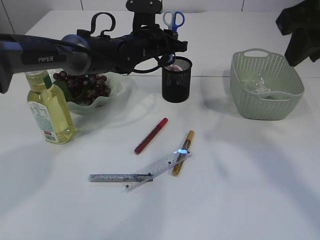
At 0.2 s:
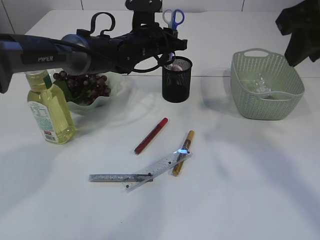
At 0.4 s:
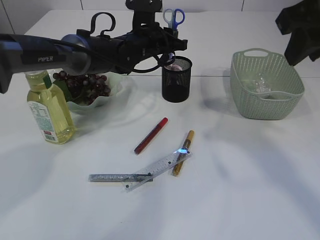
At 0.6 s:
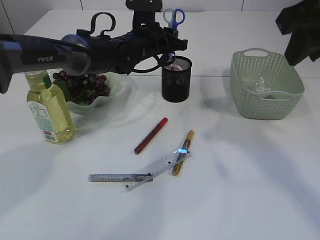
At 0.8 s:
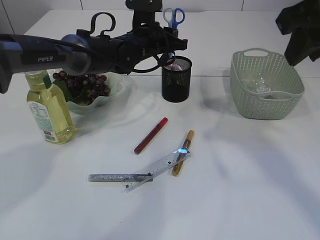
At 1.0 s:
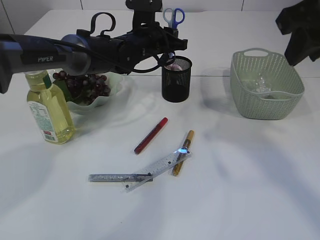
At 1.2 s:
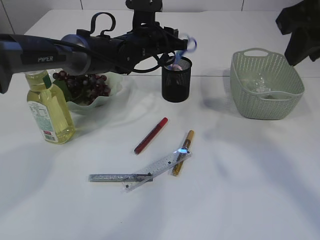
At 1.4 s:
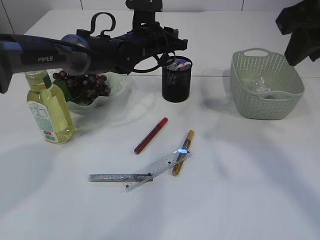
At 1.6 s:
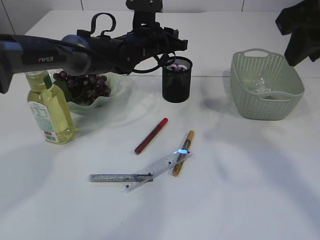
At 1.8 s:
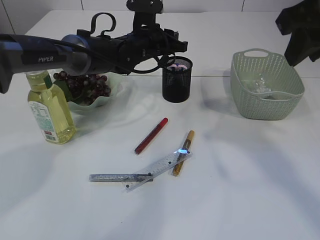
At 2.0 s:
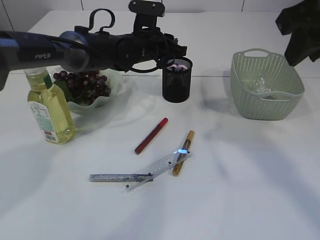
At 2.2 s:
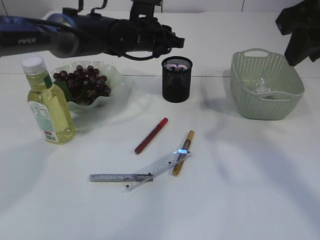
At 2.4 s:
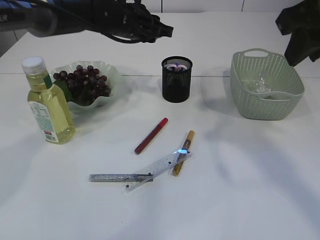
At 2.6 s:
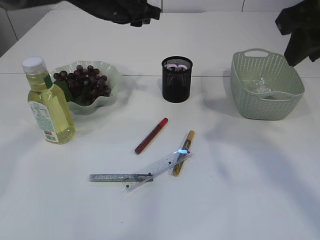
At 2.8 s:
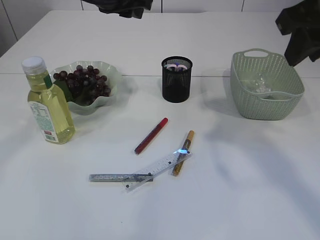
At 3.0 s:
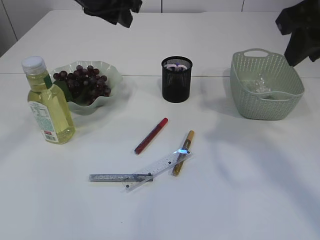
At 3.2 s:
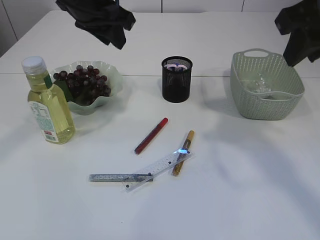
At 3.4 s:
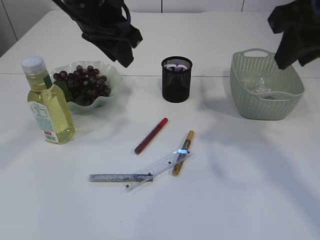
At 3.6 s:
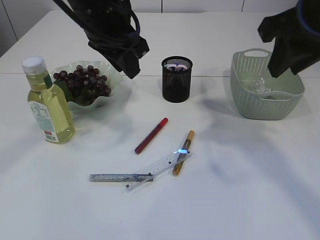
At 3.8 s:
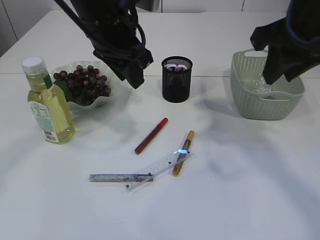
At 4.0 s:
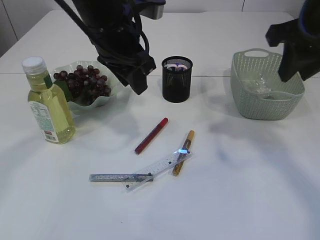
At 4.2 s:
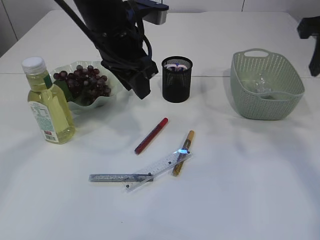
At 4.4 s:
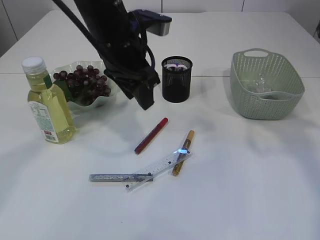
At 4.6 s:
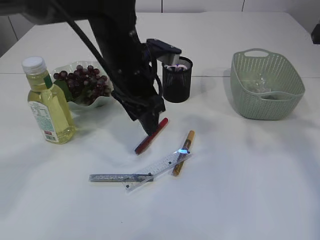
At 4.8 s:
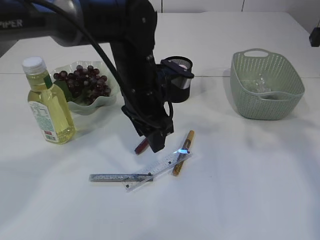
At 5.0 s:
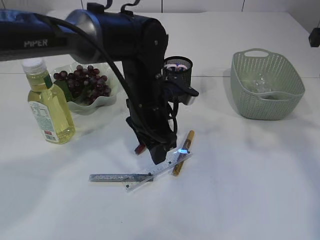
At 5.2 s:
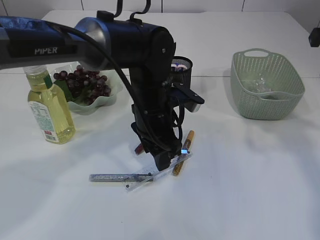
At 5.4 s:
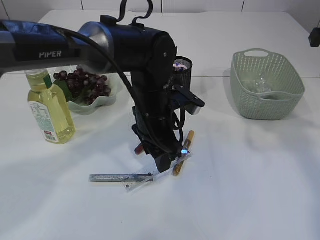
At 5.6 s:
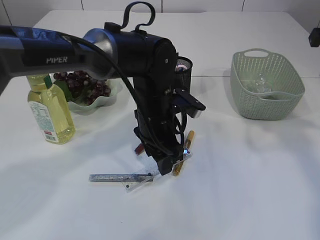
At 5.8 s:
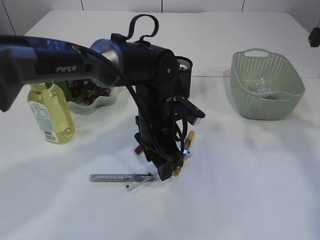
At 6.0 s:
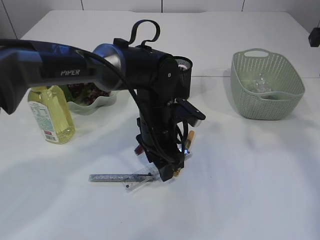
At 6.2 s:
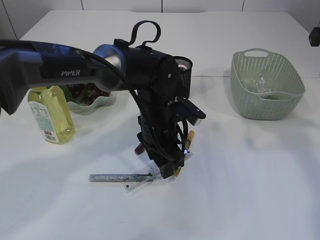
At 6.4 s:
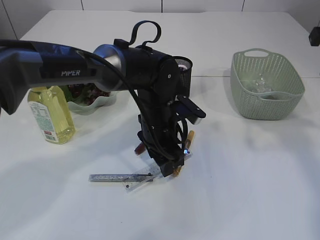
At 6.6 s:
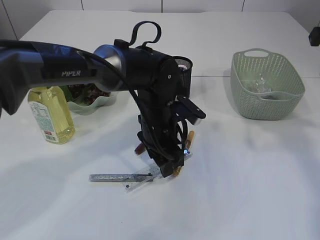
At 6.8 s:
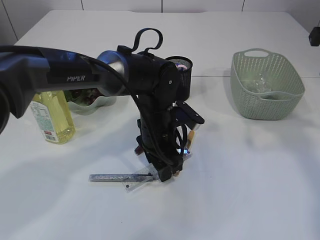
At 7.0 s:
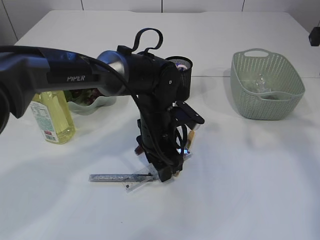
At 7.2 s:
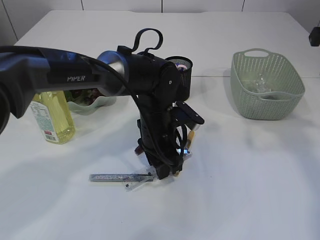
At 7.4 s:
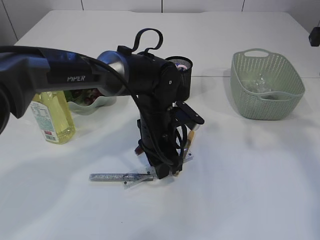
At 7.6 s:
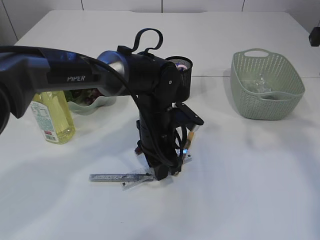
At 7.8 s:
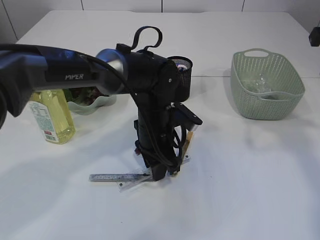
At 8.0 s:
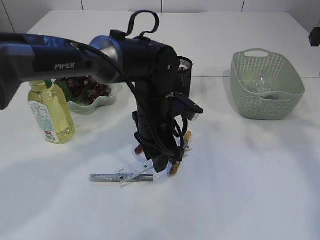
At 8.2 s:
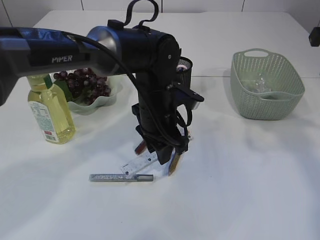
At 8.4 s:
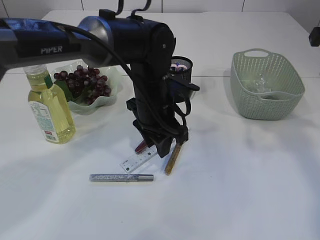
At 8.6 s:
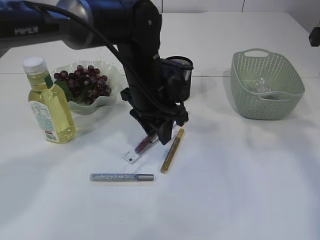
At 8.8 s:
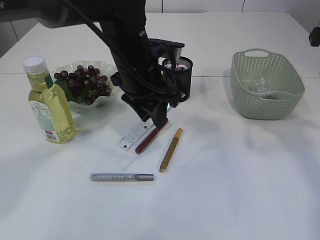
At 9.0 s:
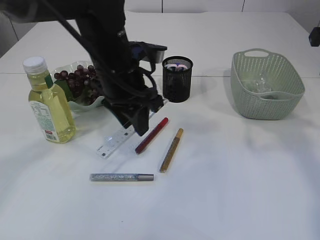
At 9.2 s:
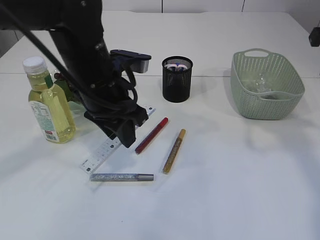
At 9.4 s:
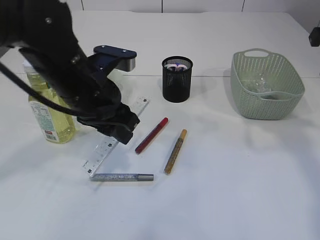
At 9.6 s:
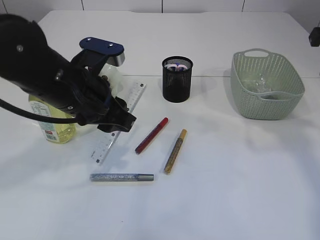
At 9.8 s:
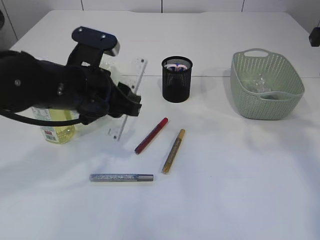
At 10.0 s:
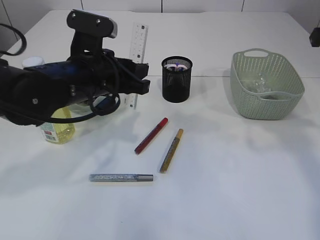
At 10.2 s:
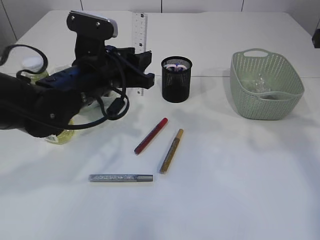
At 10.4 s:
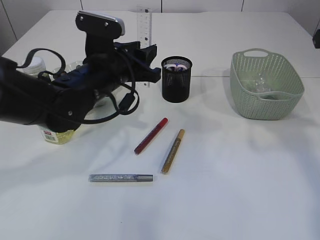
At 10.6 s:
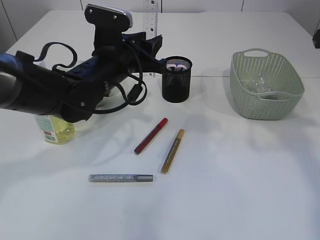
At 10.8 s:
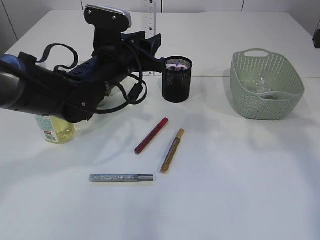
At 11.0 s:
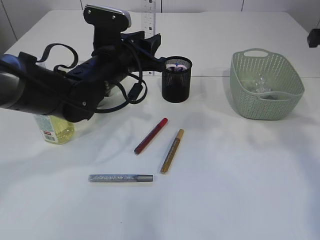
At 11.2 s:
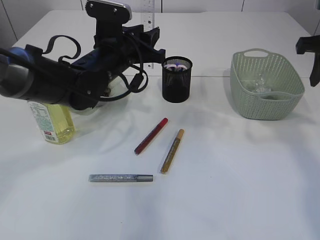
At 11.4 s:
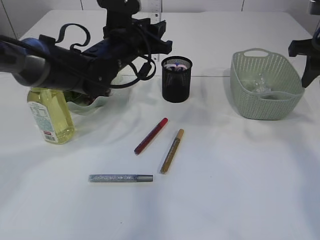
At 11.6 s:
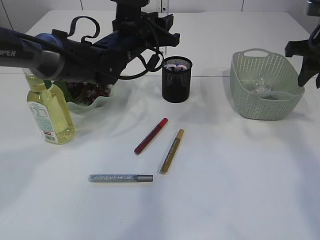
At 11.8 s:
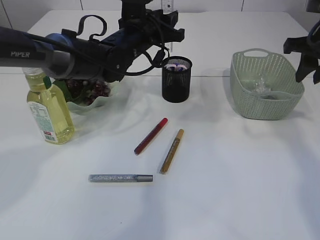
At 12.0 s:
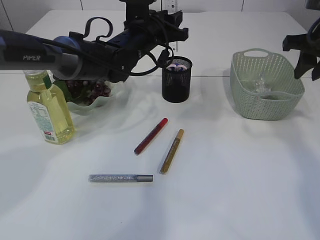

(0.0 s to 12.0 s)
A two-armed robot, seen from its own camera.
Step, 0.0 s - 2.2 s: Place the blue knife into the pen holder.
Step, 2.4 s - 9.0 s: pick up the ruler.
0.0 s - 1.6 s: Both grippers stay about where they are.
1.6 s - 3.0 s: The left gripper shifts some 20 cm upward, backward and to the left.
3.0 s - 4.4 s: The left gripper moves downward and backward, about 10 cm. The right gripper shifts about 10 cm to the right.
4.4 s - 6.0 s: The left gripper is displaced downward by some 15 cm.
6.0 s - 7.6 s: The two grippers keep their place.
7.6 s - 9.0 s: The left gripper shifts roughly 15 cm upward and to the left.
10.4 s - 12.0 s: The left gripper is displaced forward and to the right by about 15 cm, while the right gripper moves forward, about 5 cm.

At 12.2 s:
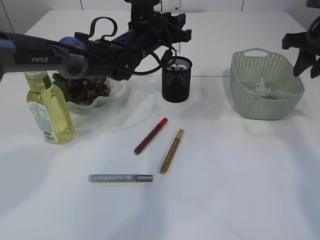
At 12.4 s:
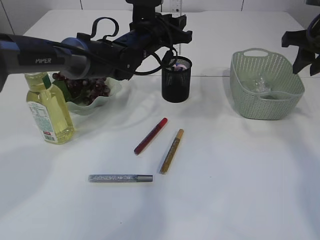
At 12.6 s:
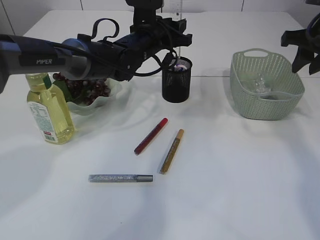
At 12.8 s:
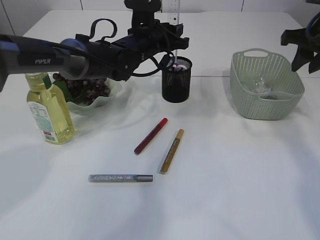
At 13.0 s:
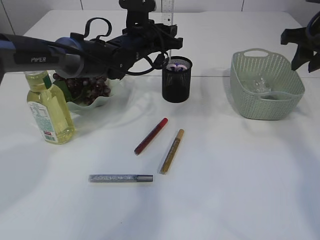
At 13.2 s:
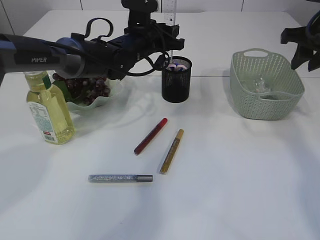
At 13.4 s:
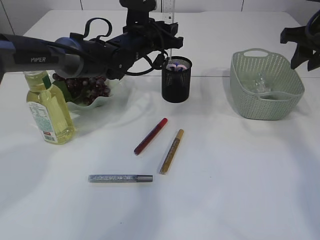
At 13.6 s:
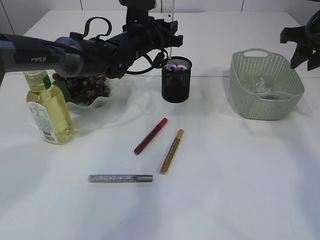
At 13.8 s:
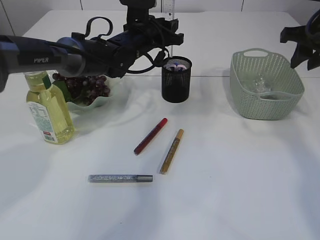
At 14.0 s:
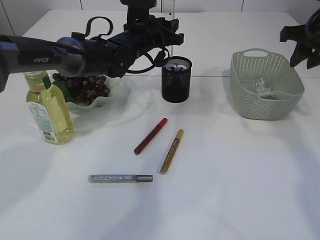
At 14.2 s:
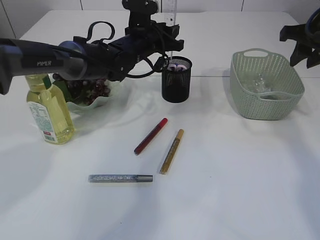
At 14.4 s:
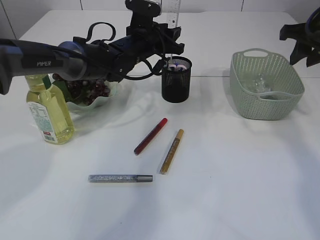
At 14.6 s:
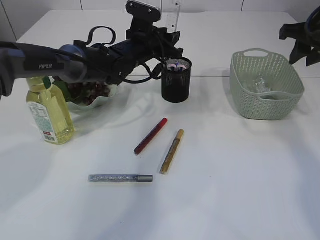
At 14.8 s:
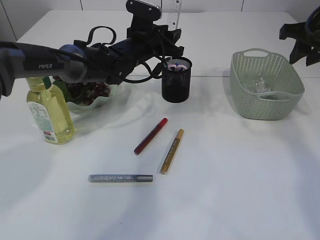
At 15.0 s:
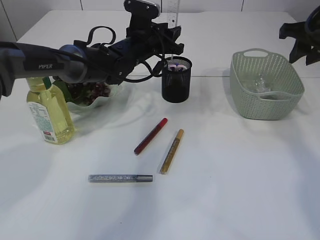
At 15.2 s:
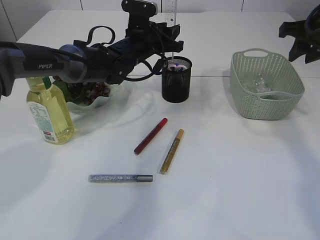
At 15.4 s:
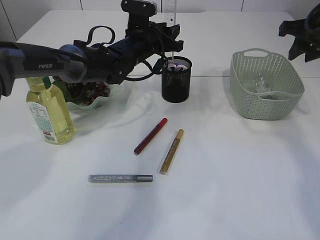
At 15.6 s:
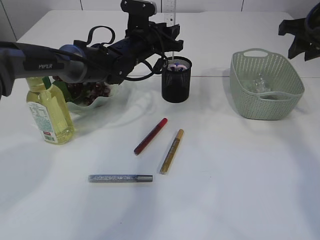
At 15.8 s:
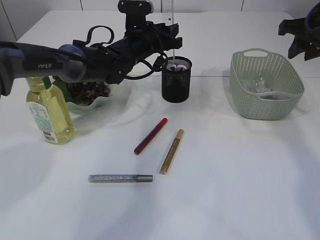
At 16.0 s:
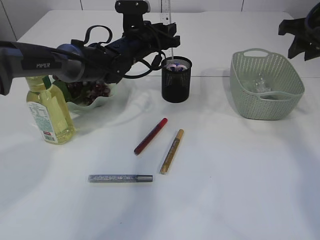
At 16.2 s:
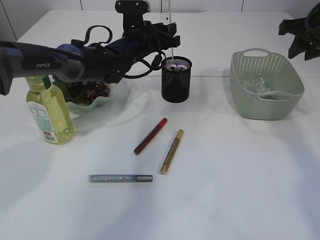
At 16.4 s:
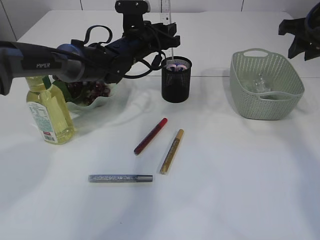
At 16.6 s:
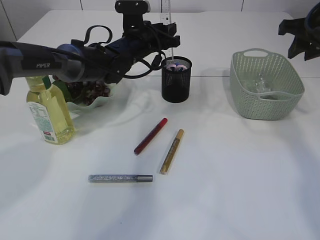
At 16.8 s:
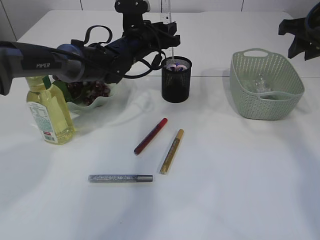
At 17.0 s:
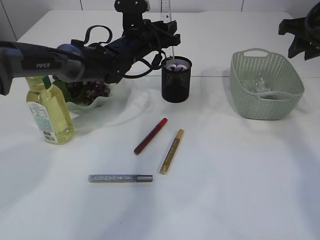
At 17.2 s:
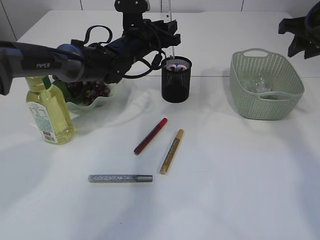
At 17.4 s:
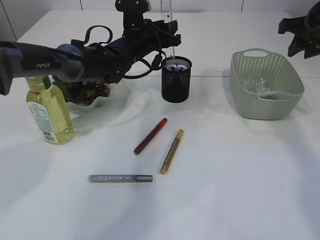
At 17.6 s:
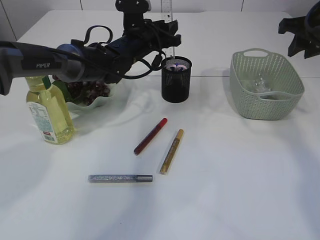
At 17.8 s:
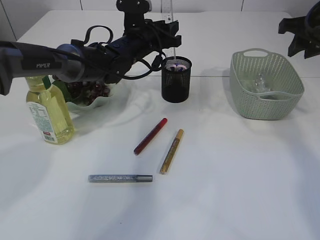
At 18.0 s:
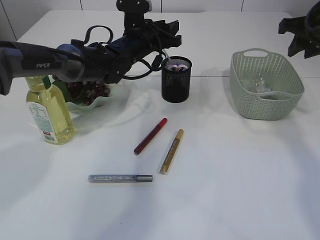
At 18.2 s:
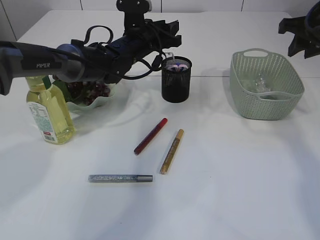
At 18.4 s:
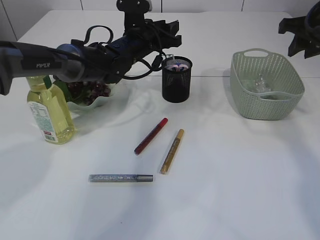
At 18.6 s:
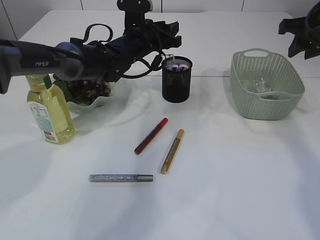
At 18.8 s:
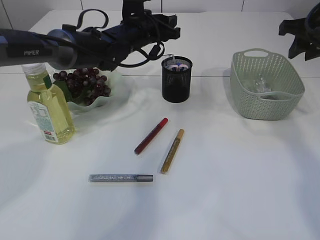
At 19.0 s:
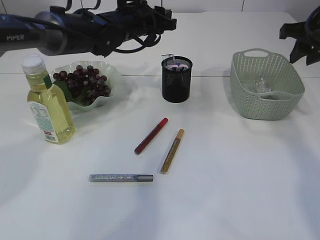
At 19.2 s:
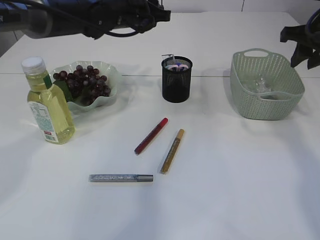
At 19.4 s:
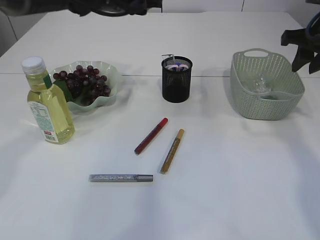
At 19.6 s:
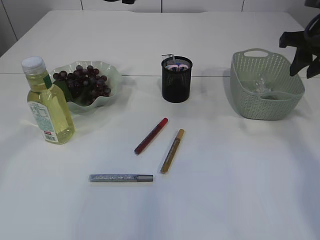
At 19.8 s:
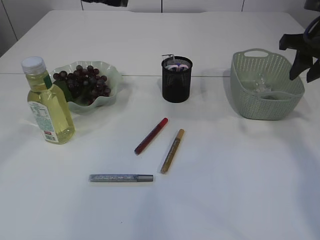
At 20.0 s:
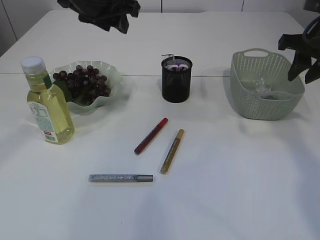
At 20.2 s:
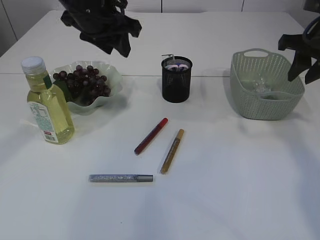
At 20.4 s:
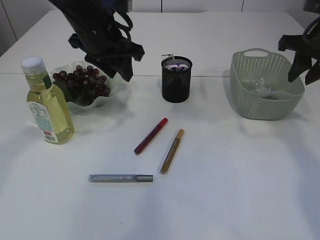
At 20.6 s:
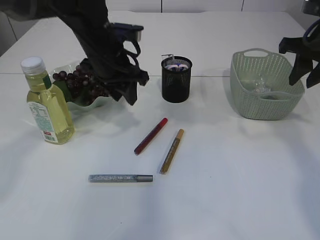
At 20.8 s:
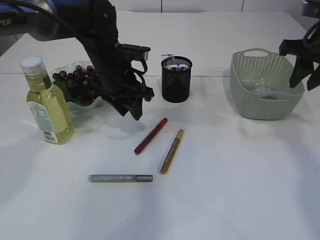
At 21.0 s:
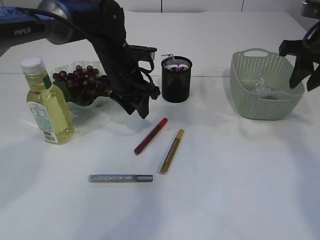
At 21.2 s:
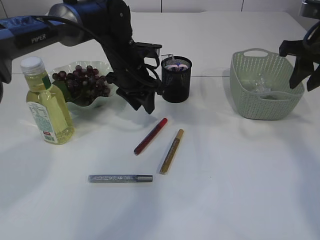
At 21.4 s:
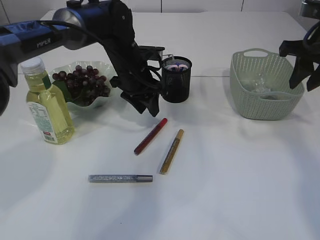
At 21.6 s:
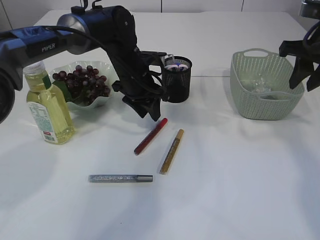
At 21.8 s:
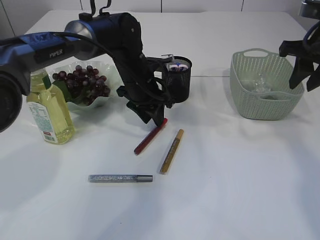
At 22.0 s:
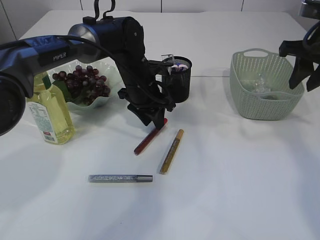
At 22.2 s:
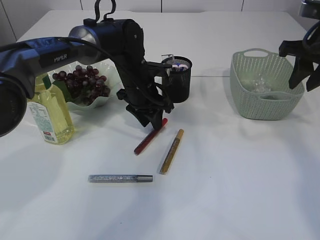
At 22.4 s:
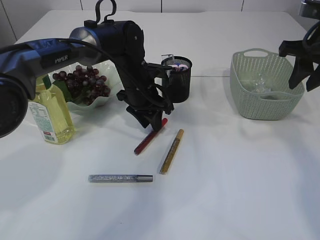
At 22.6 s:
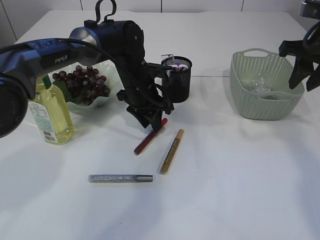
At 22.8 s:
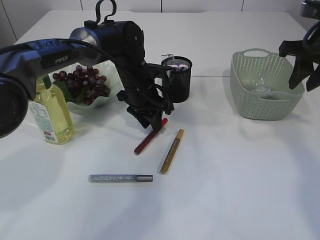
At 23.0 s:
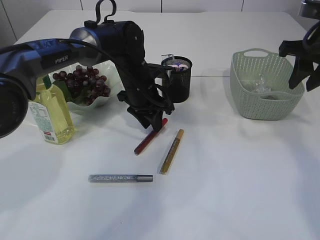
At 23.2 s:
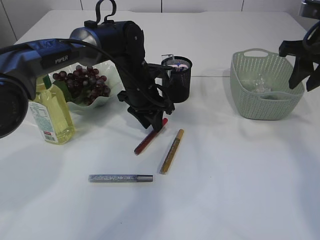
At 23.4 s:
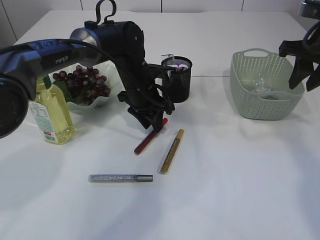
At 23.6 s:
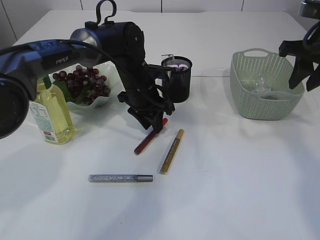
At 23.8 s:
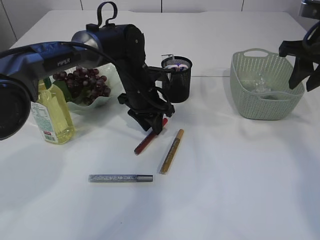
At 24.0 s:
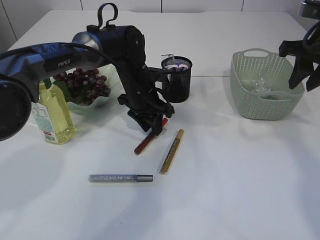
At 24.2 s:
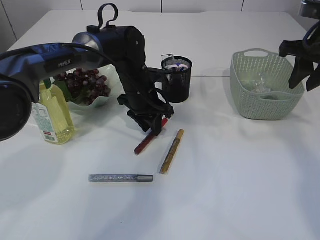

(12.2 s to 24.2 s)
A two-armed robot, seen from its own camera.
Step, 12.2 s - 18.8 s: Place the ruler into the pen holder.
12.2 s - 16.6 s: The grippers stay close to where they were, moving slightly.
16.6 s - 18.2 s: The two grippers keep their place.
18.2 s - 19.8 s: The left gripper goes approximately 20 cm upward, backward and to the left.
19.8 s - 21.2 s: The left gripper is displaced downward by roughly 15 cm.
21.2 s - 22.6 s: The grippers move only a little.
22.6 s - 24.2 s: Both grippers stay about where they are.
